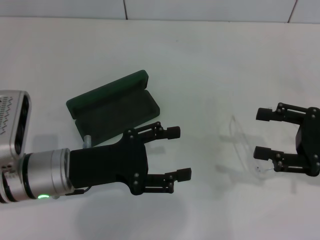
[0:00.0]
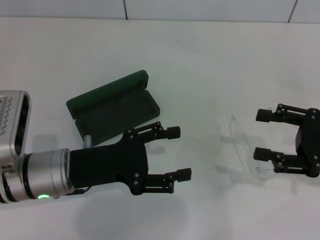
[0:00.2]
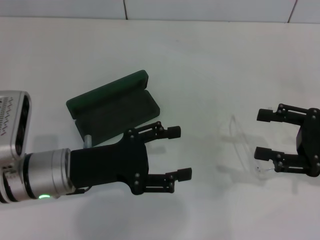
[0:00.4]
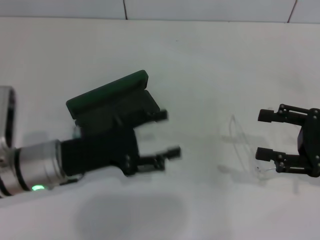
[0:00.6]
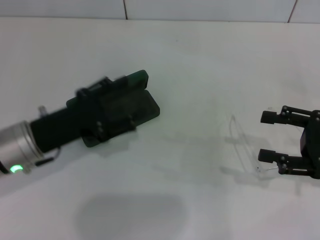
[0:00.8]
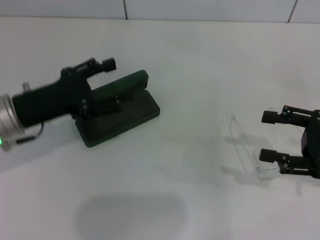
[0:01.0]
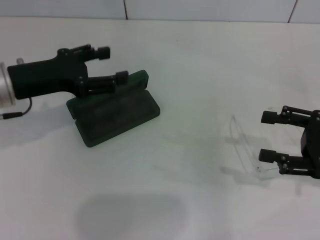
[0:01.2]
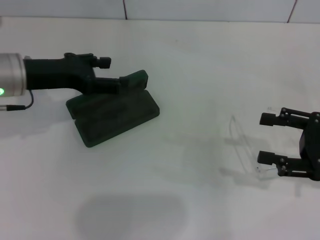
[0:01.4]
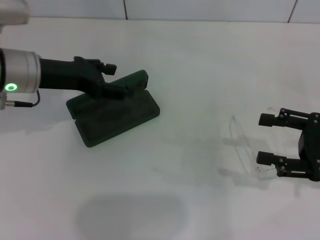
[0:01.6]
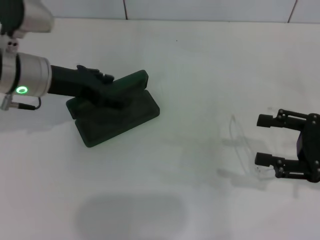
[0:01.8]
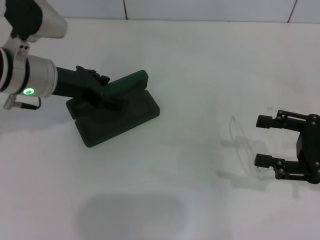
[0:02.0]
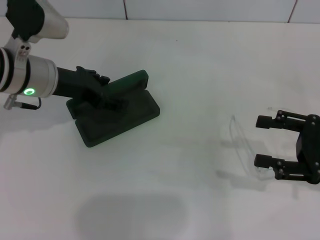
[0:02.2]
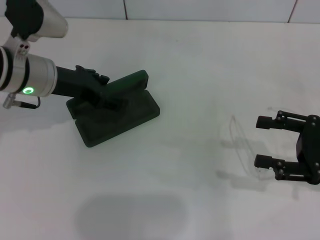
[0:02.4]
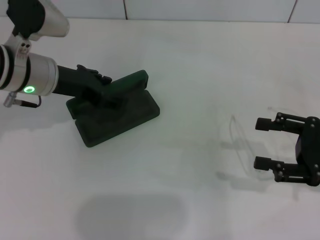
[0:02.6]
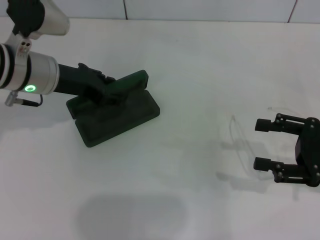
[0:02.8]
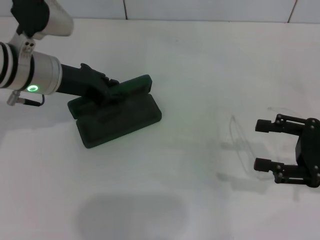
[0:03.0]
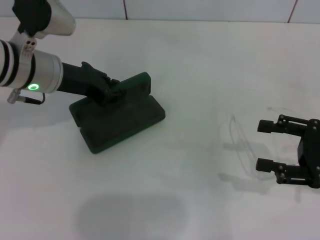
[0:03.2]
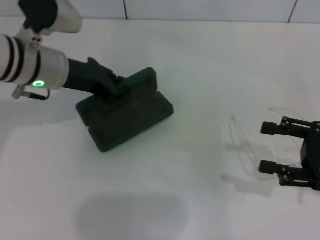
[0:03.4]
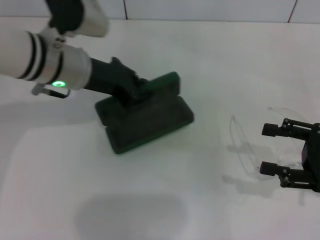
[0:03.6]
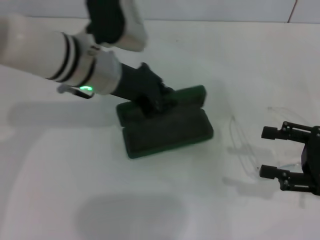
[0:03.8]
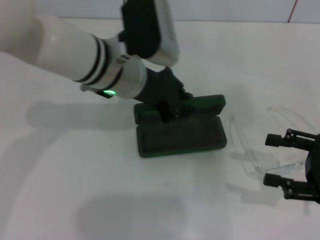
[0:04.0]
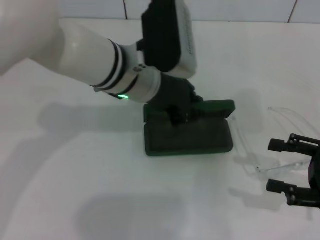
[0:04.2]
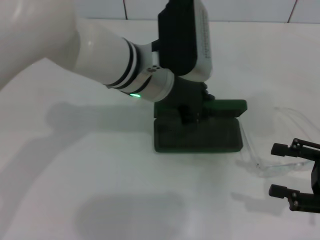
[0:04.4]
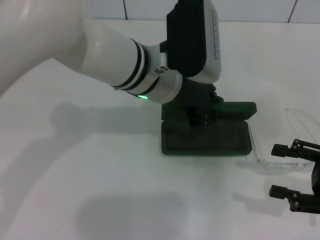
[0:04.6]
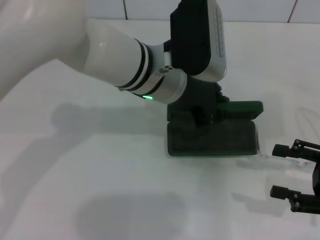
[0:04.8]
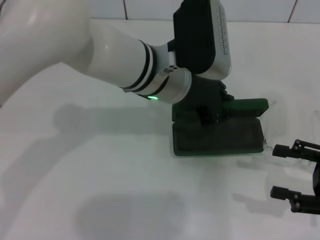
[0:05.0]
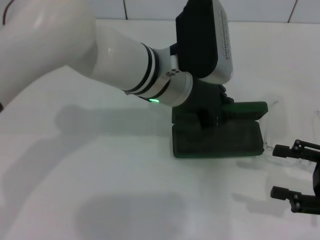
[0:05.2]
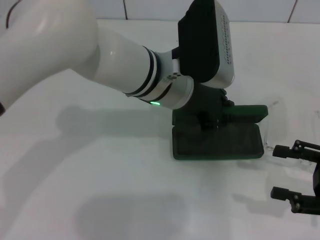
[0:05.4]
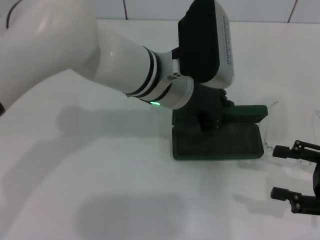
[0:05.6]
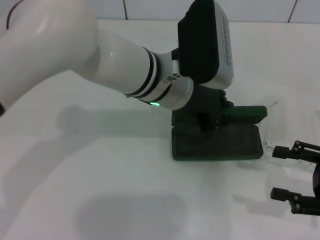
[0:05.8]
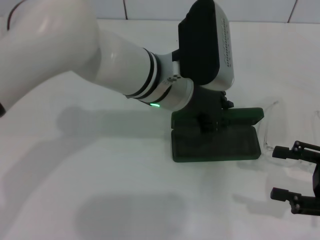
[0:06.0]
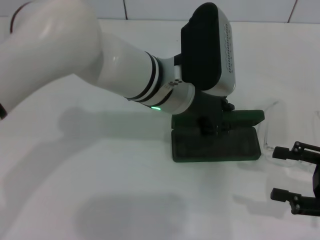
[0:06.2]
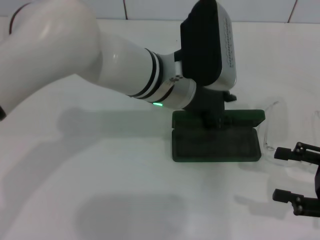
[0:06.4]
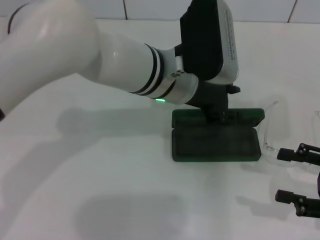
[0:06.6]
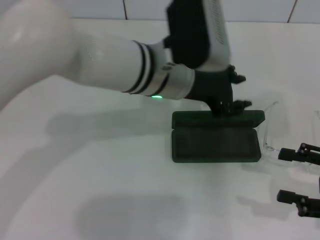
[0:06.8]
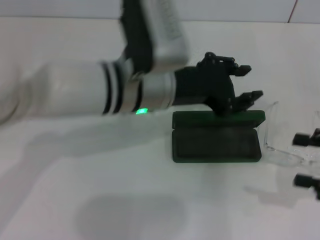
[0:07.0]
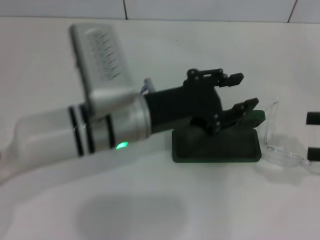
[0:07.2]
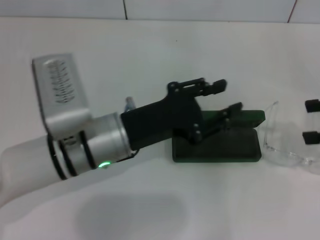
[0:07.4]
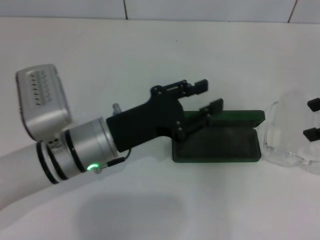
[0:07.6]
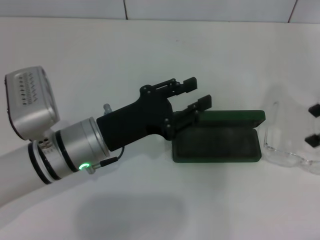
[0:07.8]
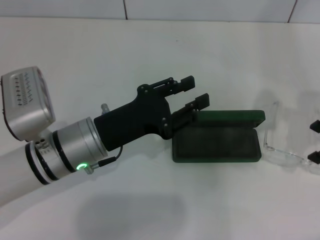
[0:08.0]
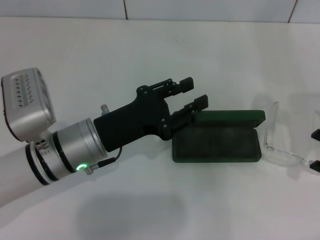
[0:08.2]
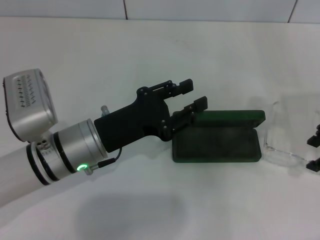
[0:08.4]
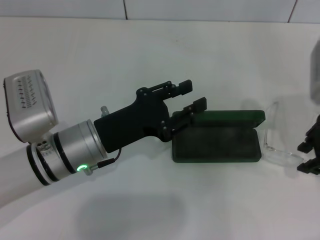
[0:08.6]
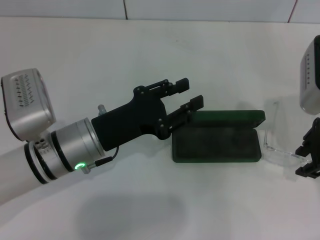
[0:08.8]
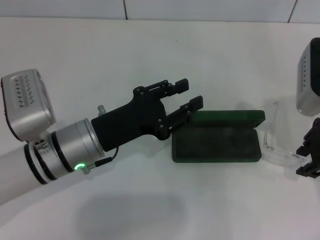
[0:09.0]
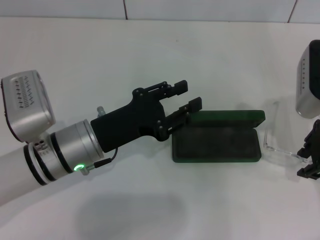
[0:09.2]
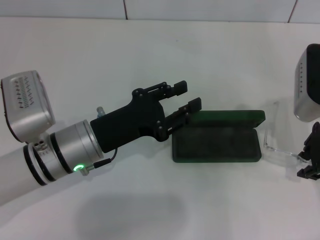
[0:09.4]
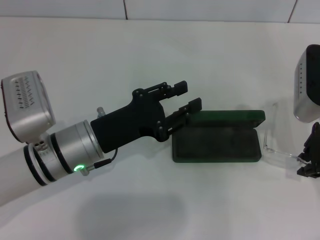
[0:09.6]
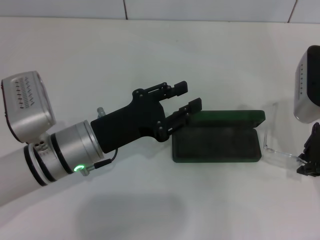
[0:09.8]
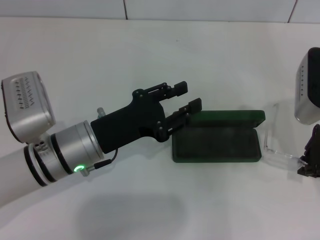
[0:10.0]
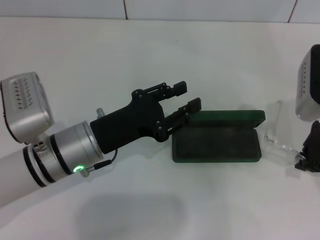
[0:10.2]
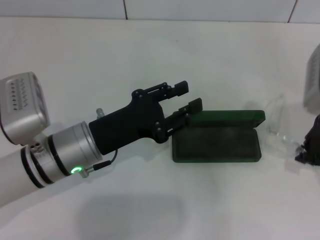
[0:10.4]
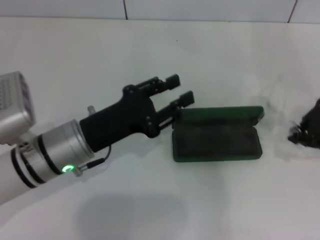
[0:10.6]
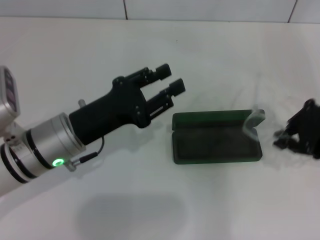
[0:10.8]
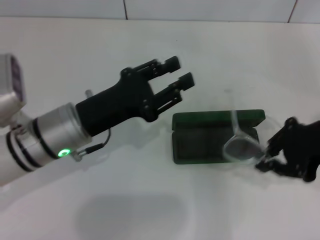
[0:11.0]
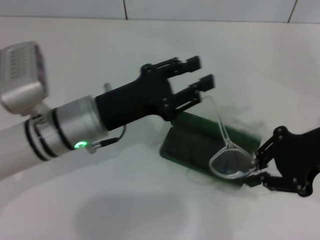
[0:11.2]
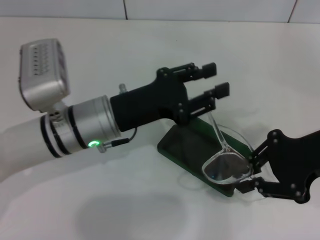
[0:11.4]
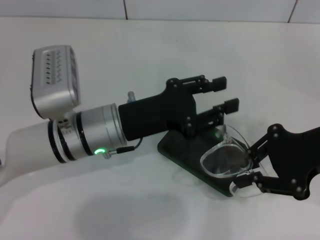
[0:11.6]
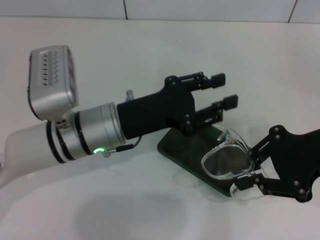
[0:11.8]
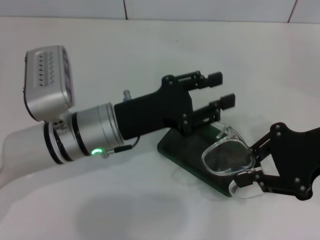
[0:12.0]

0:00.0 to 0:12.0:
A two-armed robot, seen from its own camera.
Step, 0:00.0 to 0:02.8: Grab the glasses case with your left hand.
Step, 0:03.0 to 0:06.4: Place the glasses case in the center of the table with your left hand.
Step, 0:06.8 to 0:10.0: Grab the eyeglass frame with your right hand.
0:00.0 to 0:01.6: The left gripper moves forward and upward, about 15 cm.
0:01.6 to 0:03.0: The left gripper closes up.
0:03.0 to 0:04.4: The left gripper heads to the right, covering roughly 15 cm, and closes its fingers.
0:04.4 to 0:06.0: The grippers make only small movements.
0:06.0 to 0:07.6: The left gripper is displaced to the left, backward and downward by roughly 15 cm, and opens up, while the right gripper goes roughly 15 cm upward and forward.
0:07.6 to 0:09.0: The right gripper goes about 10 cm to the left.
0:09.0 to 0:10.4: The right gripper closes.
0:10.4 to 0:12.0: The right gripper heads backward, covering roughly 5 cm.

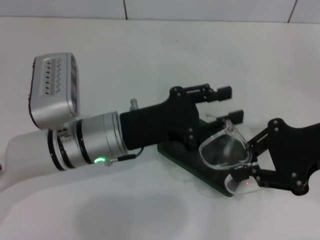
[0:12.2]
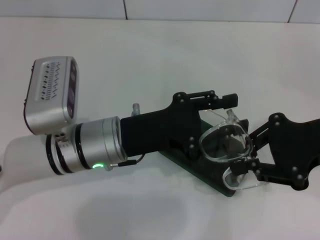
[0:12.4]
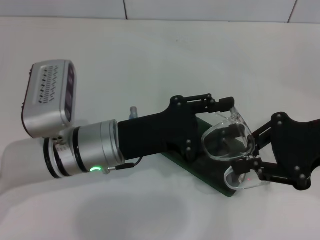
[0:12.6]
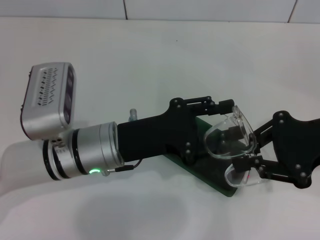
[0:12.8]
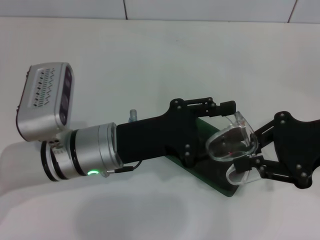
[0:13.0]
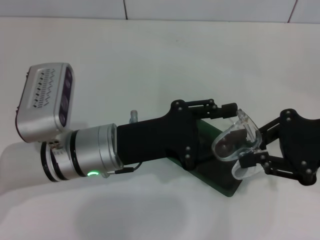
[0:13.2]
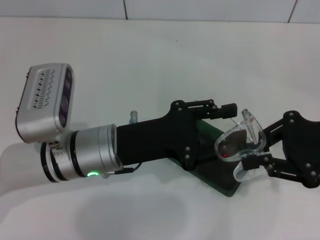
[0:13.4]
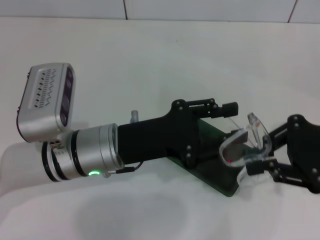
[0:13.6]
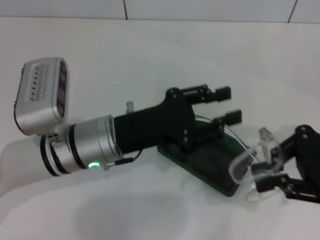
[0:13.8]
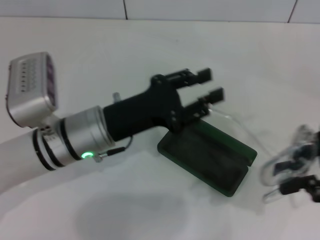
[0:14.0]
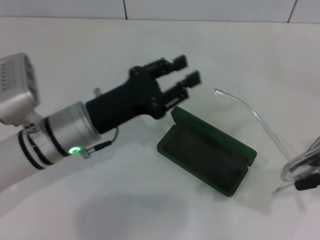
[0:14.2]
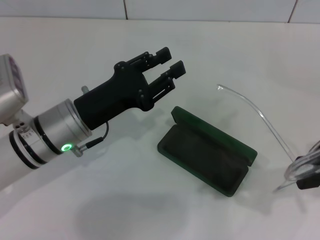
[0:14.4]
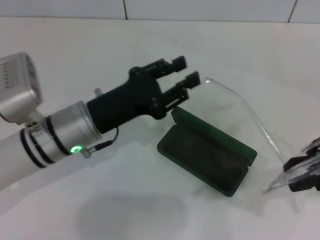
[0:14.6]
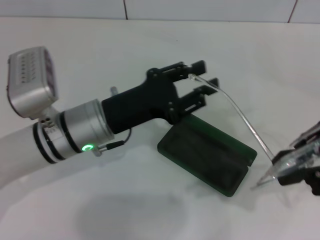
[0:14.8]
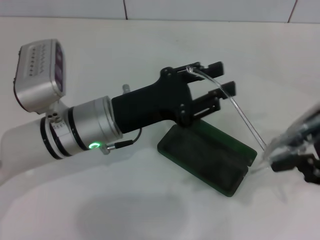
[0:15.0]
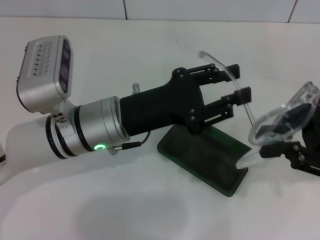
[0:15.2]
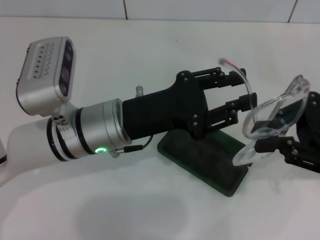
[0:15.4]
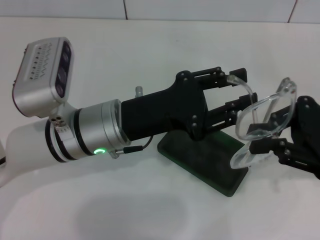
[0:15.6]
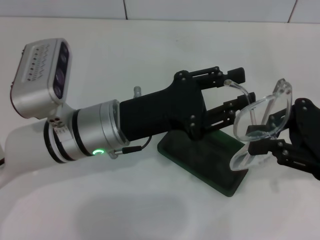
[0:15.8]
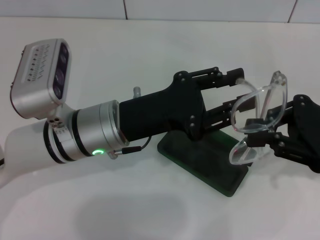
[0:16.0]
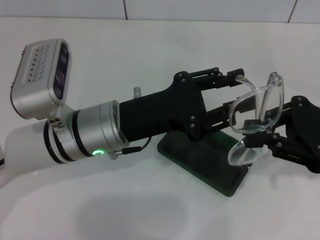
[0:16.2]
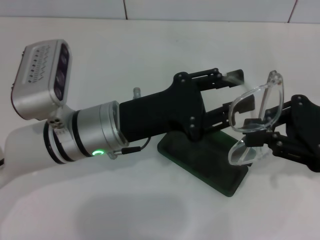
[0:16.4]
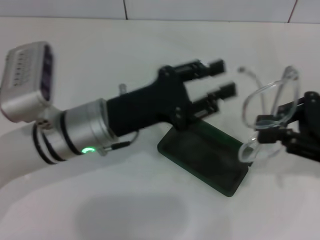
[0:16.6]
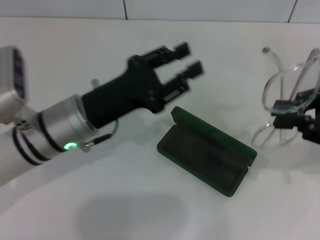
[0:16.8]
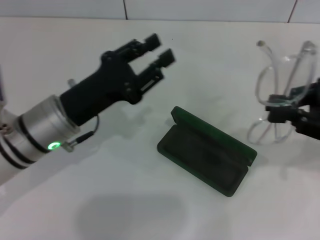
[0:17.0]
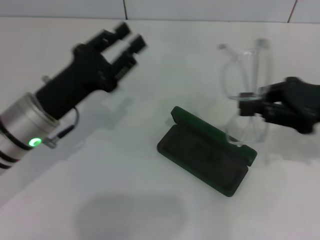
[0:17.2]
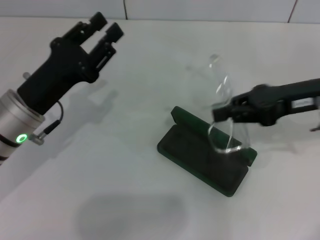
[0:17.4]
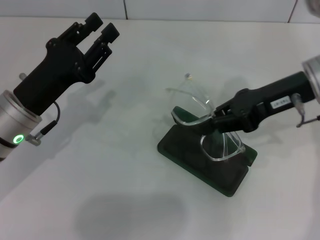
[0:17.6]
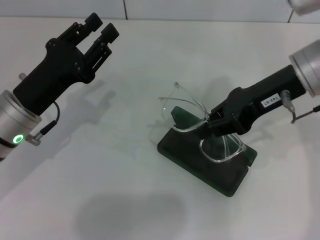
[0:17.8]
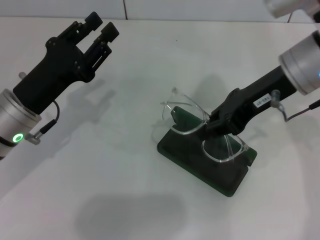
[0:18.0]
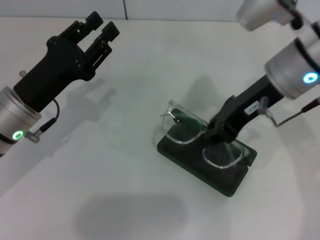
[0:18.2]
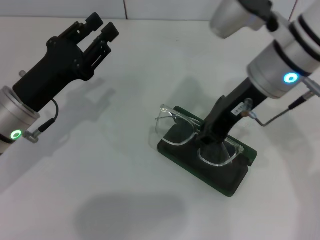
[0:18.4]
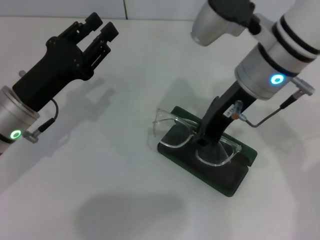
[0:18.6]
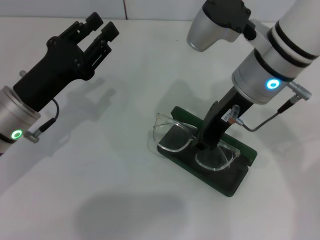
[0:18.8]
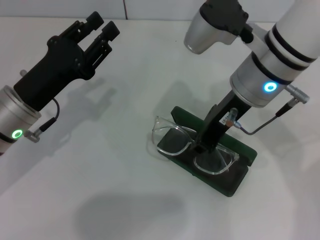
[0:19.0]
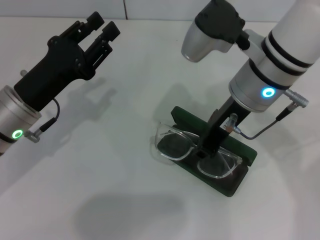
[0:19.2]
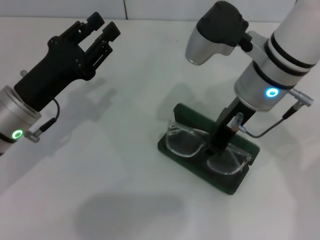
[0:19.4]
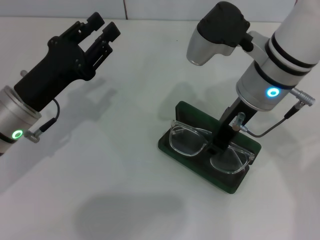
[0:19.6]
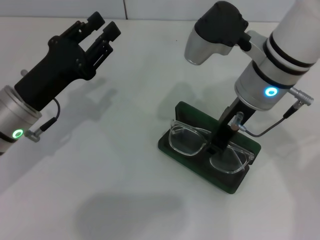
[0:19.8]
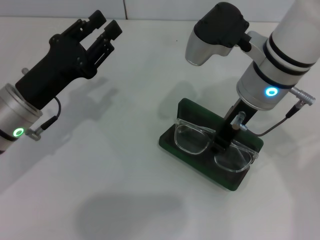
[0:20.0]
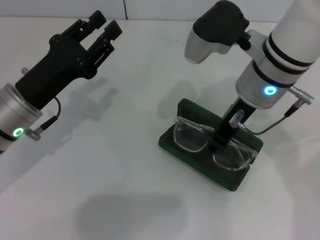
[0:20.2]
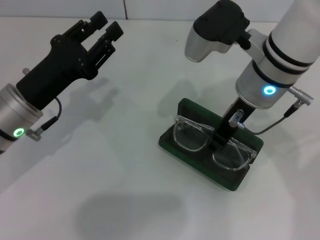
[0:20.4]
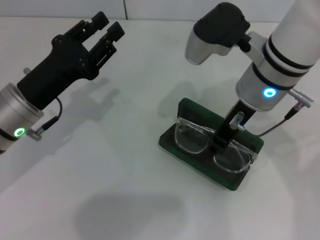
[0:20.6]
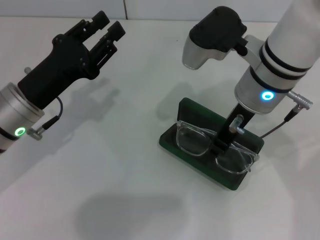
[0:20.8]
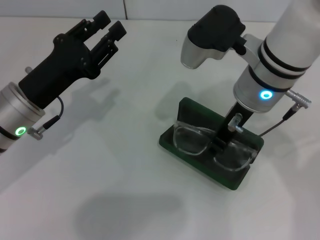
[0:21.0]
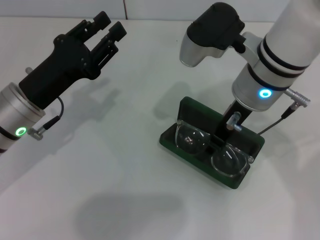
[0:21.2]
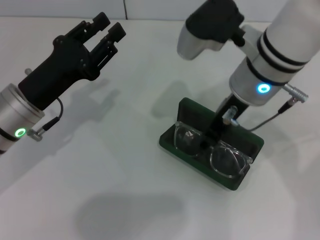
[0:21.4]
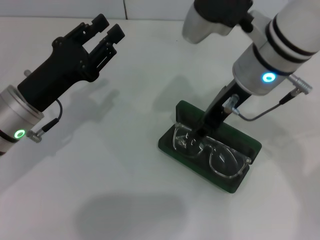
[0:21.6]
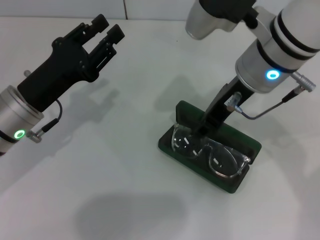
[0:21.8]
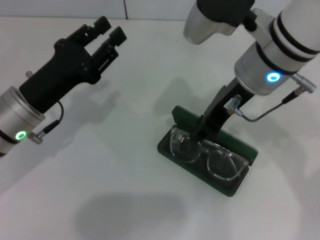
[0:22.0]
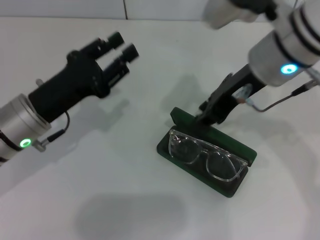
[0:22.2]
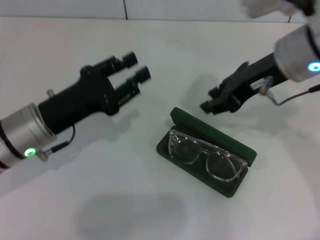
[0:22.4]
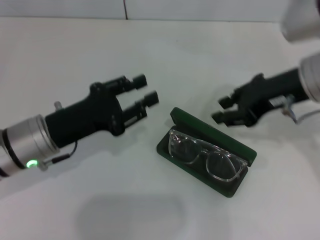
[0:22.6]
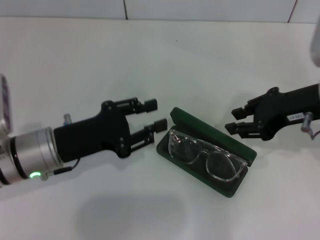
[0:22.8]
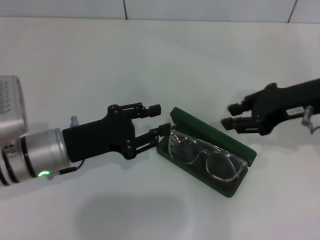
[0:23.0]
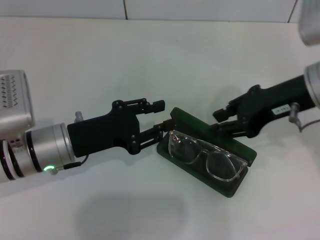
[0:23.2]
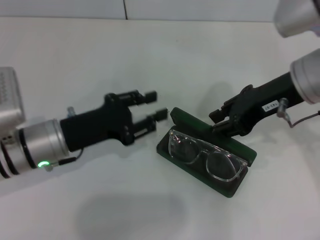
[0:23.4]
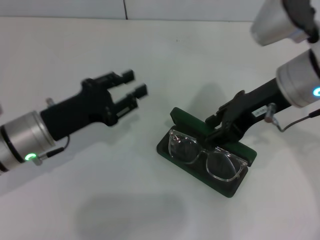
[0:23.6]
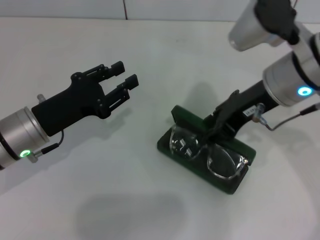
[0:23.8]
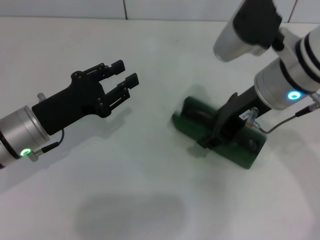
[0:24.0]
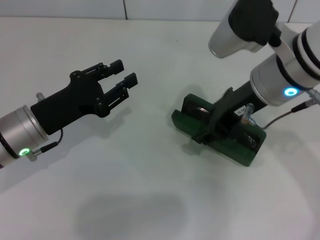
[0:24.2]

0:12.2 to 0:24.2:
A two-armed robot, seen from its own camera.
Step, 0:12.2 to 0:16.4: Fold the frame with your left hand.
Step, 0:16.6 to 0:23.4: Put the glasses into the case with your right hand.
0:12.2 to 0:13.8: The grippers stay close to where they were, moving slightly.
0:15.2 to 0:16.6: The grippers stay close to where they were, moving slightly.
0:16.6 to 0:18.2: The right gripper travels to the left and forward by some 15 cm; the left gripper heads to the left, covering some 10 cm.
0:18.2 to 0:19.8: The grippers stay close to where they were, moving slightly.
0:19.8 to 0:21.2: The grippers make only small movements.
0:21.2 to 0:22.6: The right gripper shifts approximately 10 cm to the right.
0:22.6 to 0:24.2: The right gripper is displaced to the left by about 5 cm.
